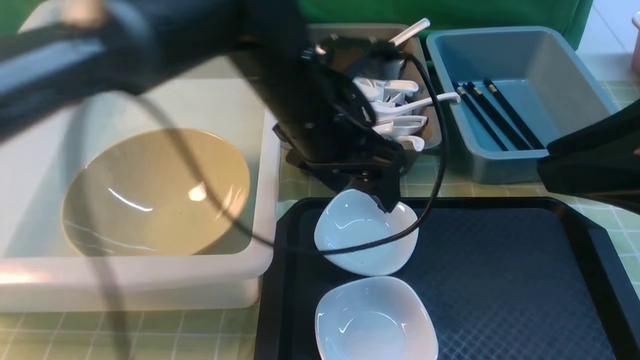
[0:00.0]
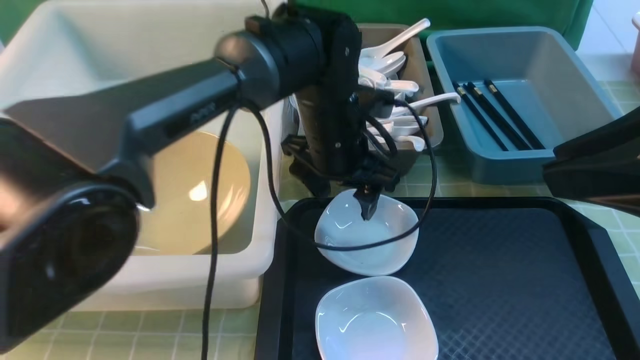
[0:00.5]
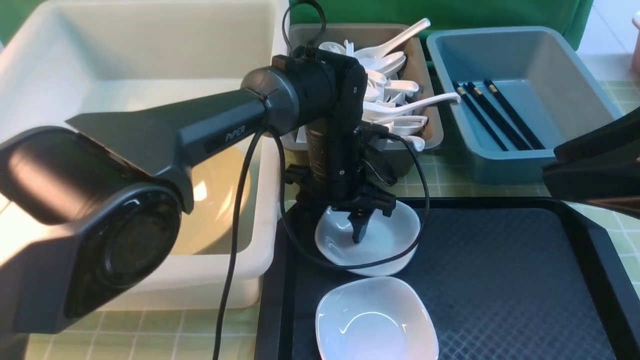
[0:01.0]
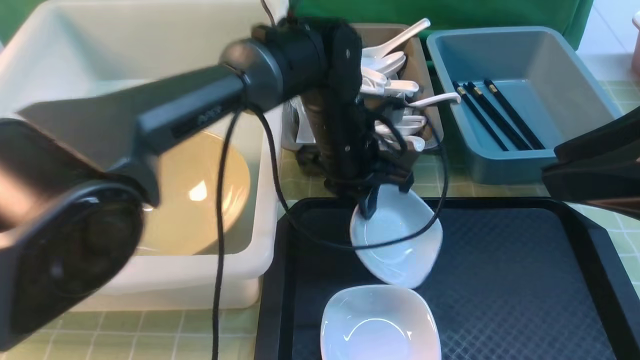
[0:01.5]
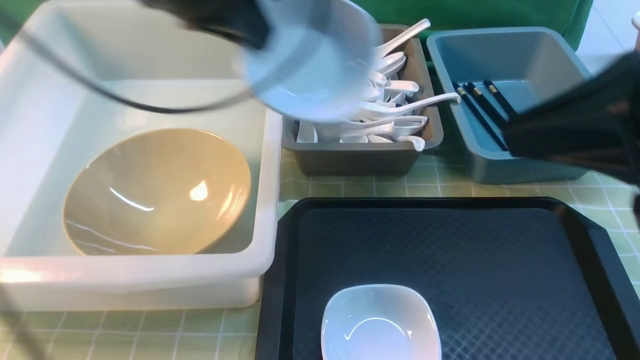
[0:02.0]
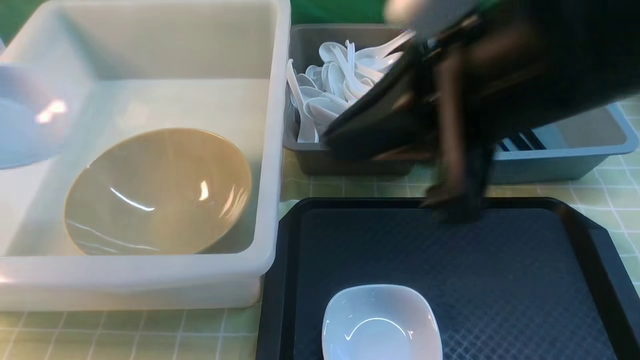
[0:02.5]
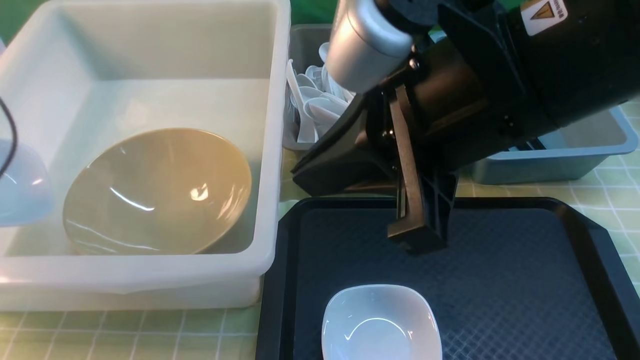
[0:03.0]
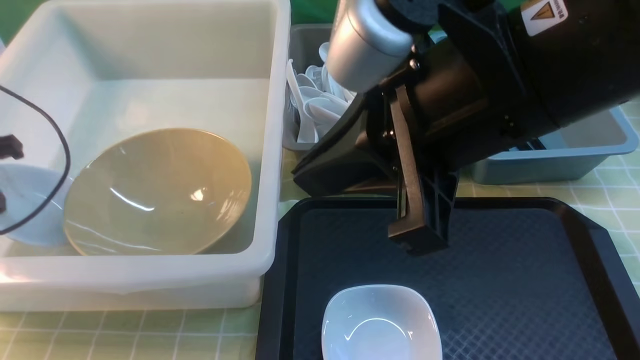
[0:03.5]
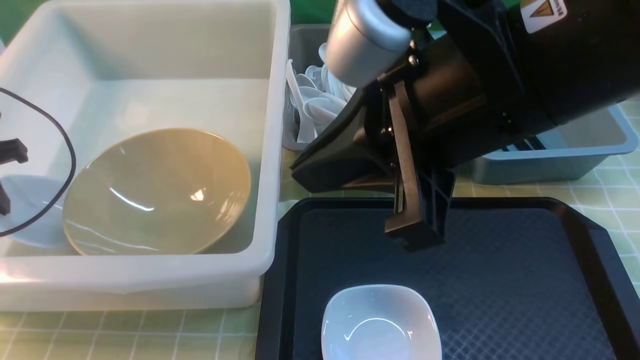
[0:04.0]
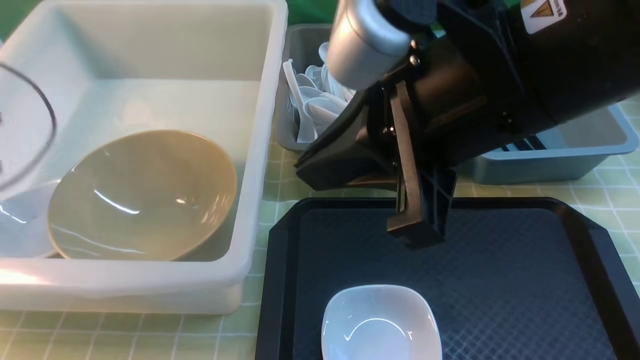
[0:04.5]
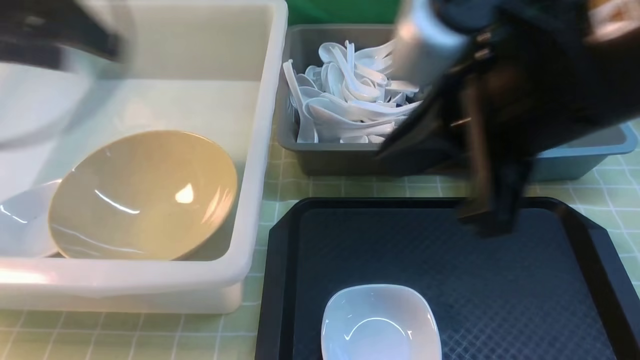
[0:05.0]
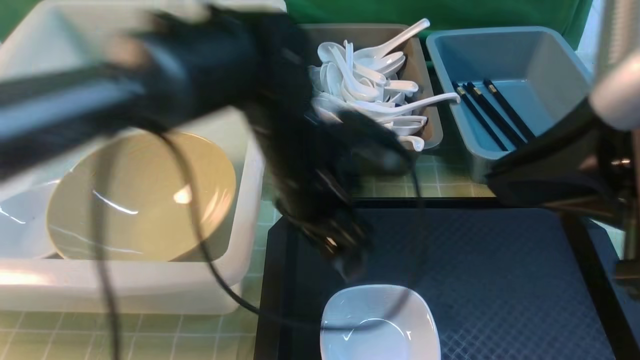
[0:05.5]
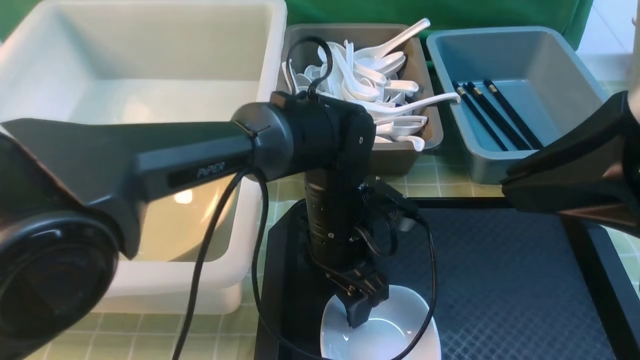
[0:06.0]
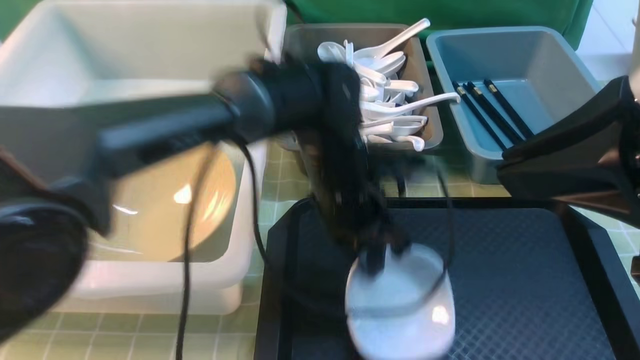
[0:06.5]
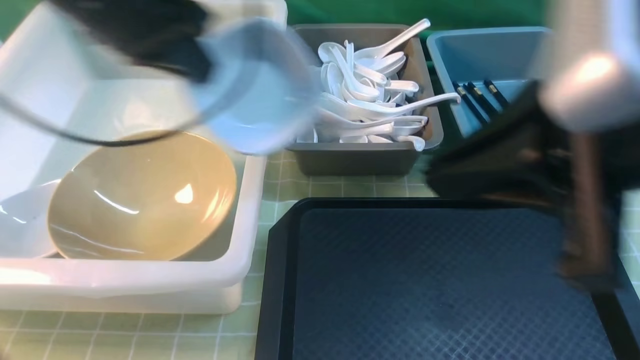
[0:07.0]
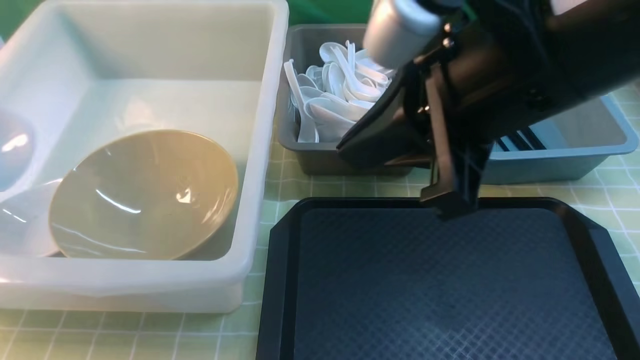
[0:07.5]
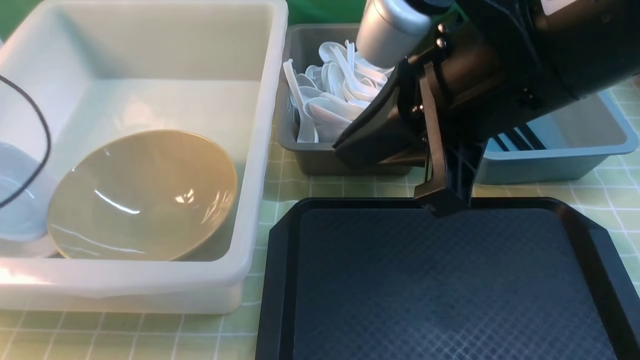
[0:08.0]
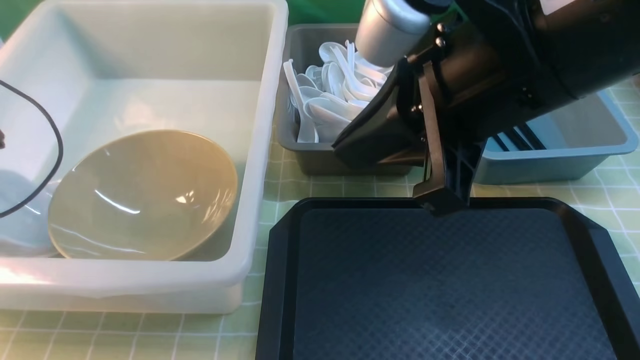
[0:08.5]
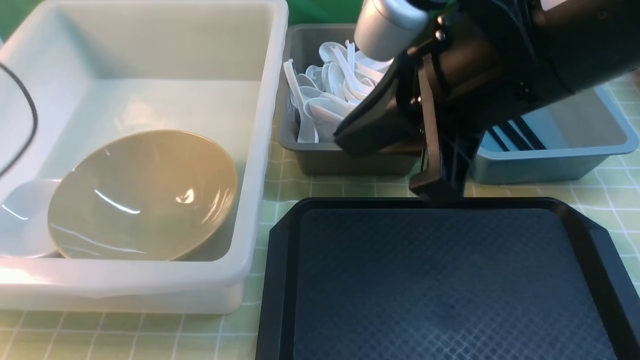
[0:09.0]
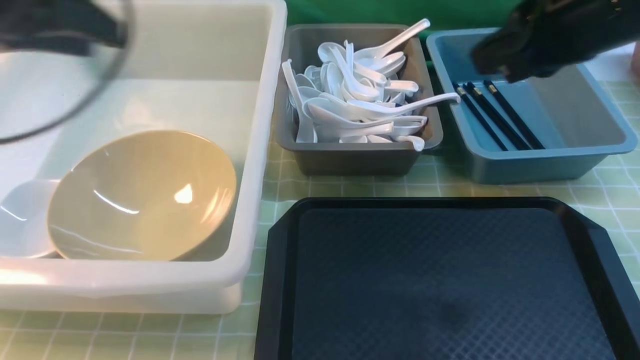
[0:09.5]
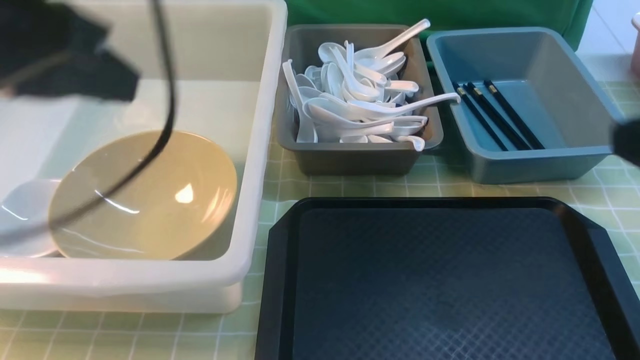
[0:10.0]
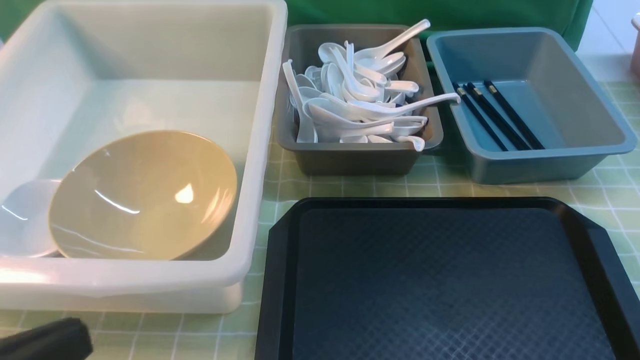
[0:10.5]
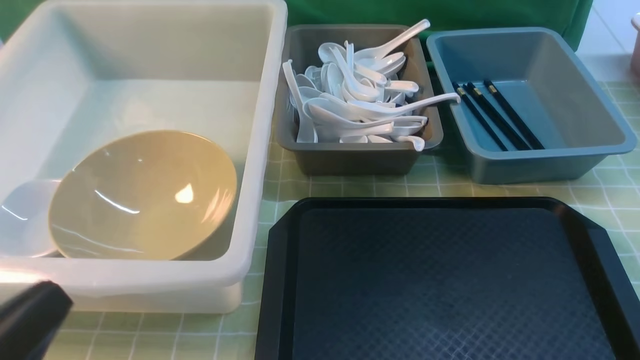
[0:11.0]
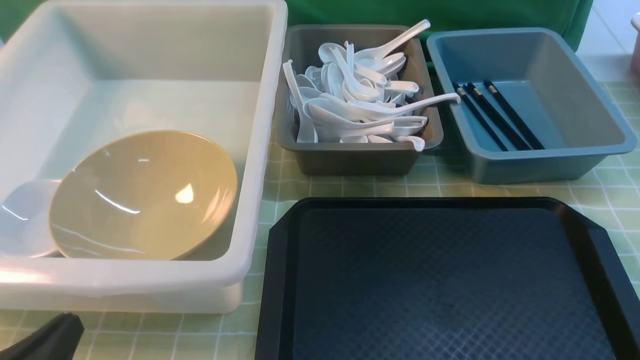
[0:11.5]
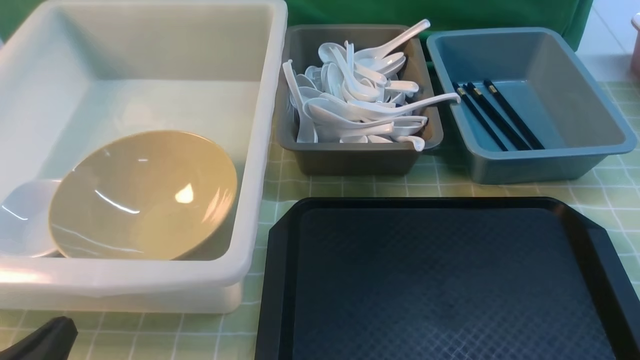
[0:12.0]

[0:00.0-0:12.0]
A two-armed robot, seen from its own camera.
Task of the whole recording: on green table put chopsticks spoon bowls plates into blue grey white boxes.
Step, 0:00.0 to 0:01.5: use the left arm to grab the plate.
Step, 0:02.0 to 0:04.5: use the left arm to put the plate into the large storage box on the left.
Step, 0:05.0 to 0:06.0: use the left arm to grab the plate.
Step, 0:07.0 to 0:09.0: use the left arm to put the plate into the large storage box on the left.
0:00.0 to 0:02.0: The left gripper is displaced to the left and upward by approximately 15 cm, and closes up.
0:02.0 to 0:04.0: The left gripper moves to the left and downward, some 30 cm, while the right gripper shifts about 10 cm to the left.
0:04.0 to 0:06.0: The left gripper heads to the right, covering roughly 40 cm, and opens, while the right gripper goes about 10 cm to the right and backward.
0:06.0 to 0:08.0: The right gripper heads forward and to the left, covering about 10 cm, while the left gripper goes approximately 40 cm to the left, and closes its fingers.
0:08.0 to 0:10.0: The right gripper heads to the right and backward, covering some 20 cm, while the left gripper is displaced to the right, backward and upward by roughly 30 cm, and opens, then closes once more.
0:10.0 to 0:12.0: The left gripper heads downward and backward, covering some 30 cm.

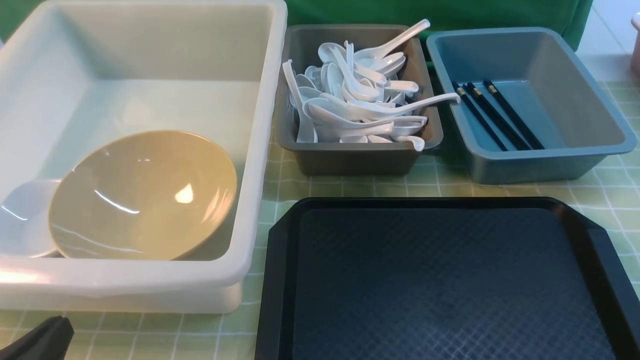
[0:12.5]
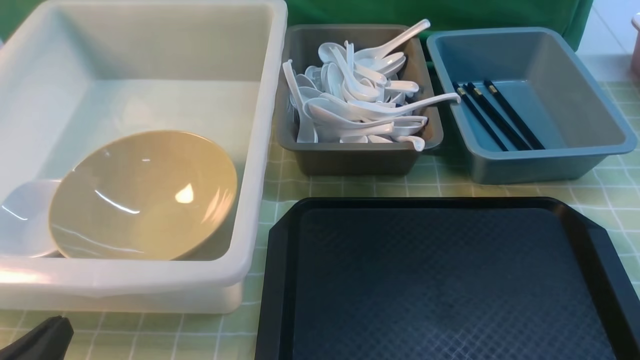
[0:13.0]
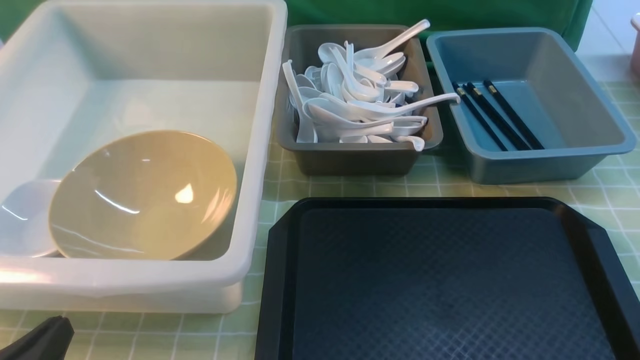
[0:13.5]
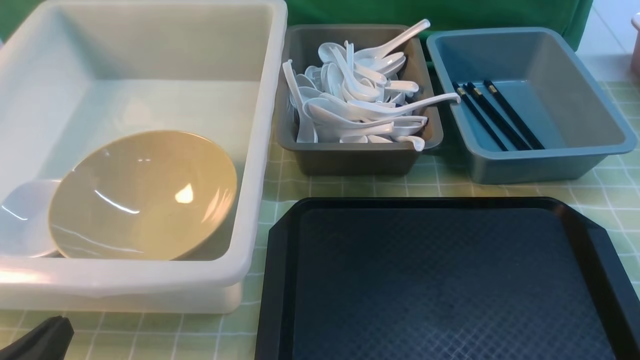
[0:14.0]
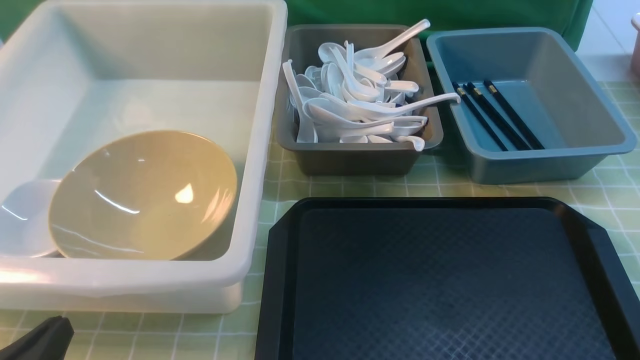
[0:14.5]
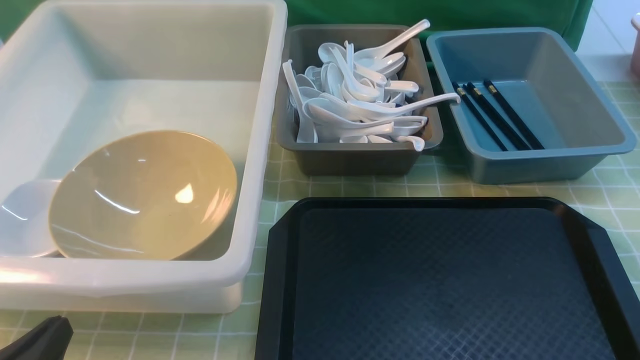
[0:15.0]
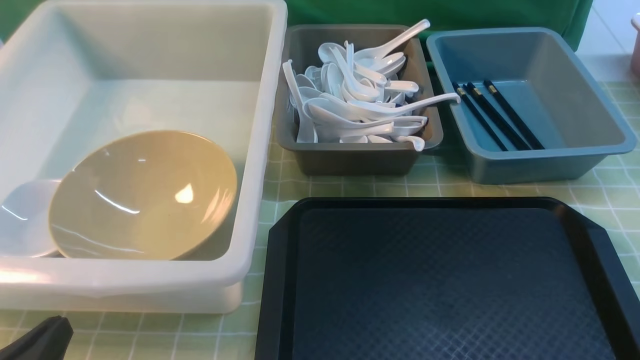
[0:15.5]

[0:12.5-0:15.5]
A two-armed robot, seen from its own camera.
Task of the whole recording: on green table put chopsticks spoon bowls plates into blue grey white boxes.
0:14.0 to 0:15.5: Both grippers stay put.
